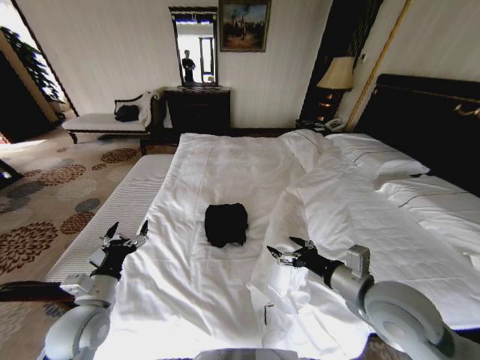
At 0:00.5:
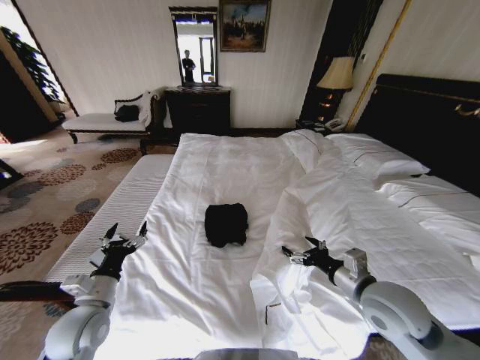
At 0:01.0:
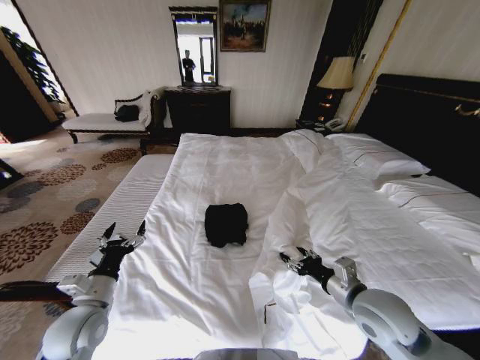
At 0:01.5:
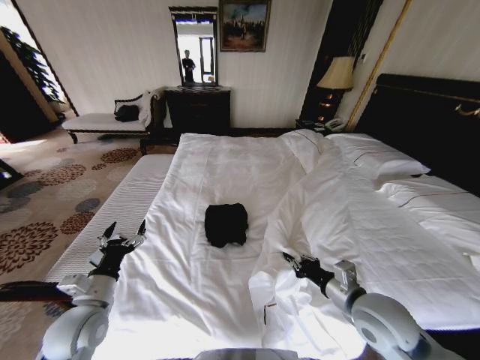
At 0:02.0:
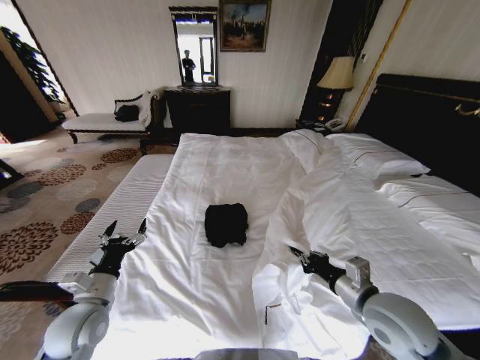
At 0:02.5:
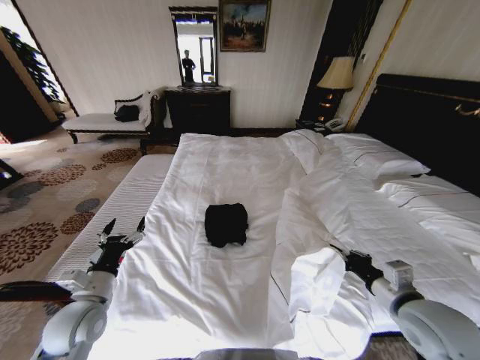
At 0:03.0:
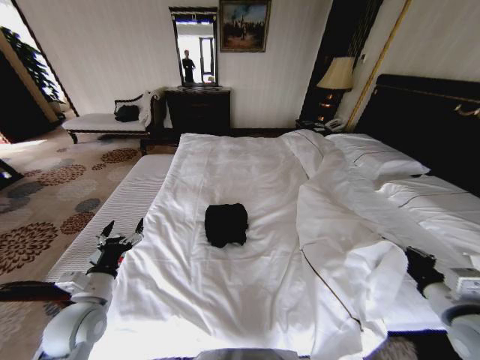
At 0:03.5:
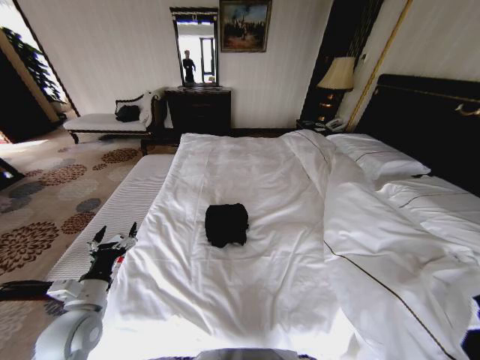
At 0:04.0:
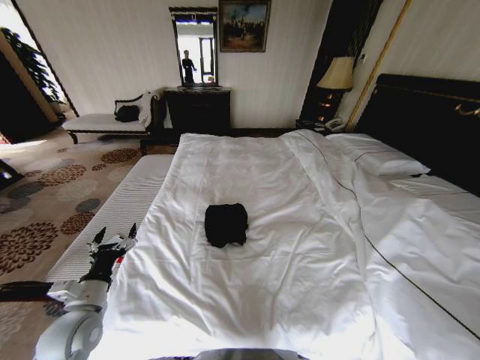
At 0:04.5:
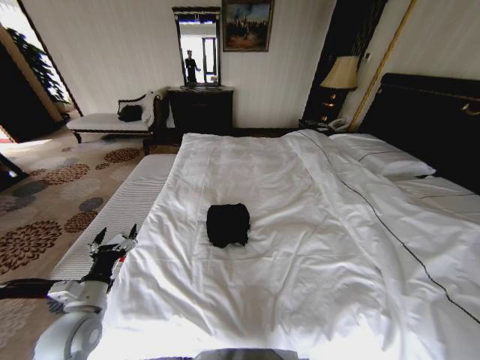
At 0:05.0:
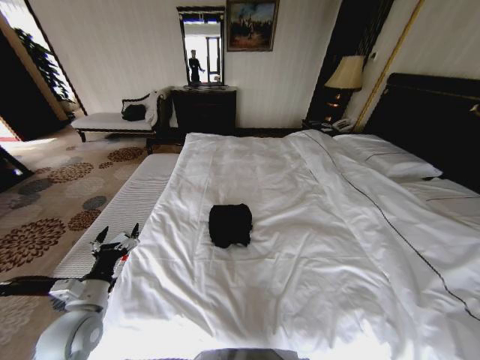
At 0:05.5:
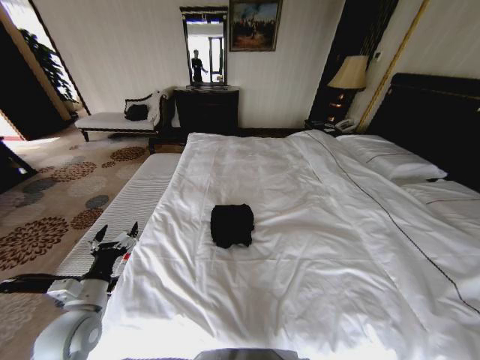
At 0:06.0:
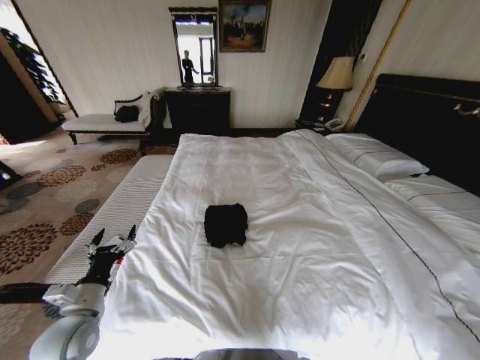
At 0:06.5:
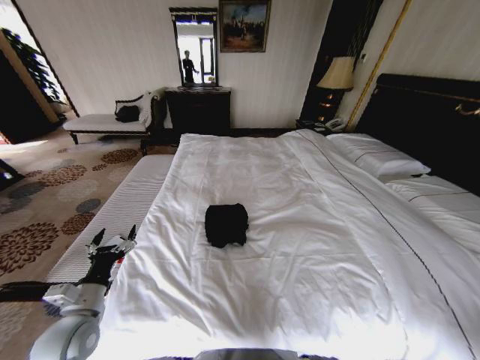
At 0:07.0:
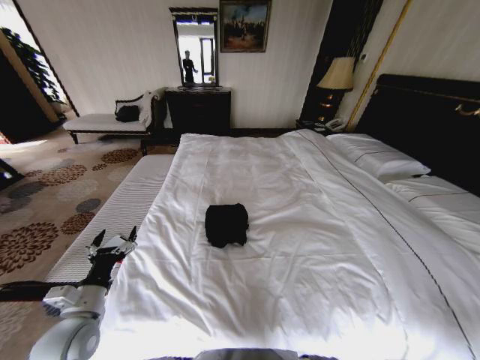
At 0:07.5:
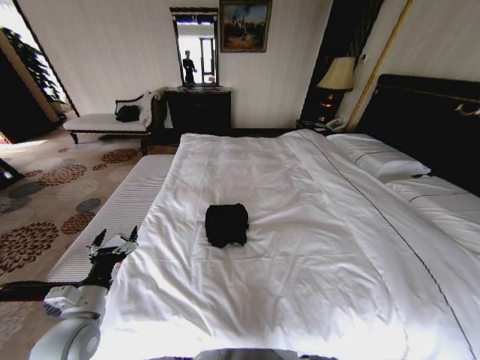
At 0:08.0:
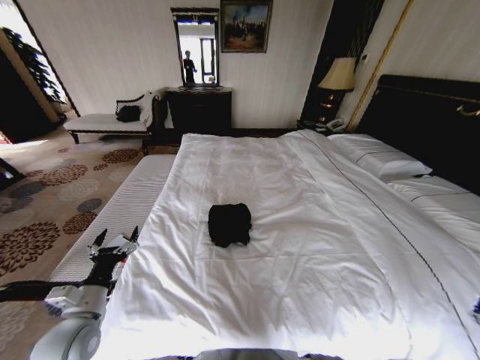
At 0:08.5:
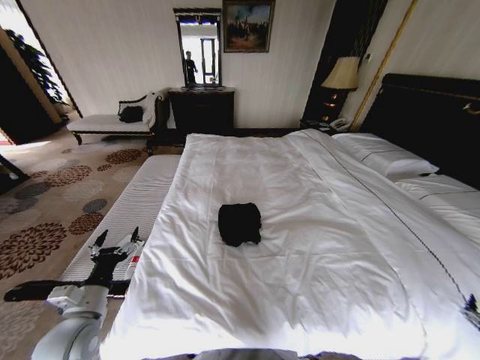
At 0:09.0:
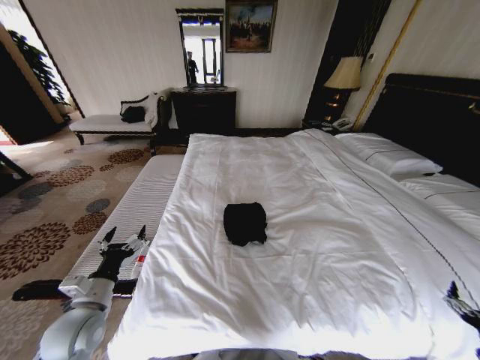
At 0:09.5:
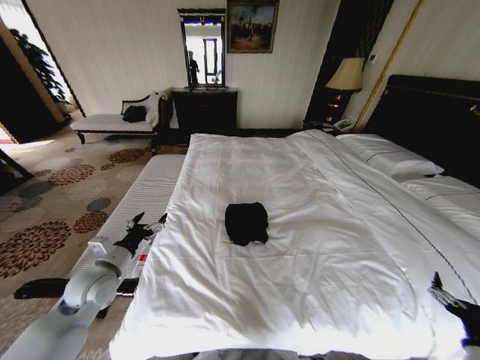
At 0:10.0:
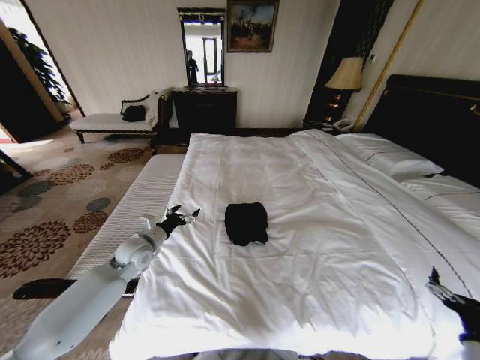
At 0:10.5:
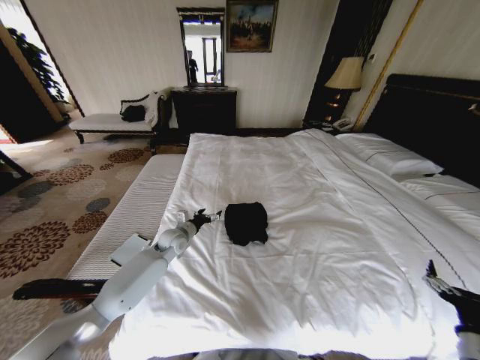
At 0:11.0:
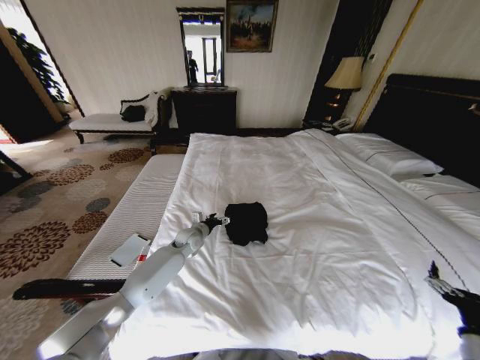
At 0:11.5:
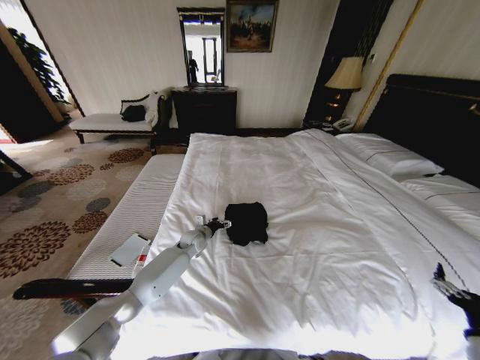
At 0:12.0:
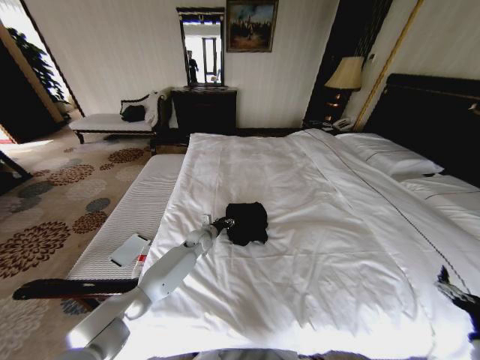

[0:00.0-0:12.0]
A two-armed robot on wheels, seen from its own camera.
Task of the whole recording: Fold the clothes on the bed.
0:00.0 to 0:02.0: The right gripper closes up.
0:02.0 to 0:04.0: The right gripper moves to the right and backward, some 35 cm.
0:04.0 to 0:06.0: The right gripper travels downward, to the right and backward by about 25 cm.
0:06.0 to 0:08.0: The right gripper moves to the left, forward and upward, some 20 cm, and opens.
0:08.0 to 0:10.0: The left gripper goes roughly 20 cm forward. Meanwhile the right gripper heads to the left, covering approximately 5 cm.
0:10.0 to 0:12.0: The left gripper travels to the right, downward and forward by approximately 25 cm, and closes up.

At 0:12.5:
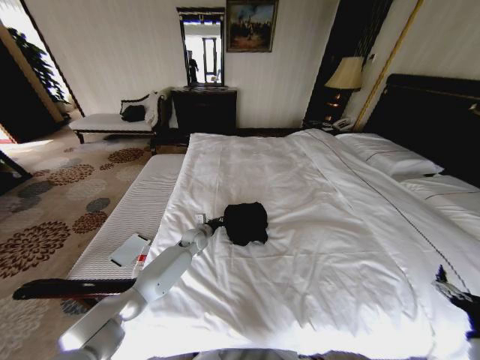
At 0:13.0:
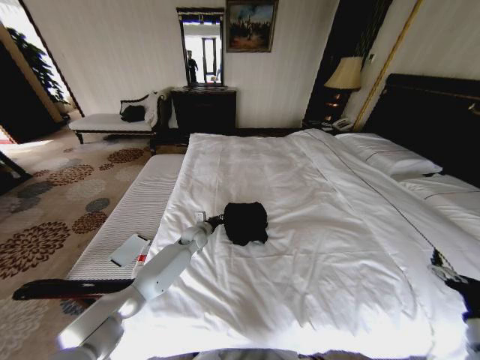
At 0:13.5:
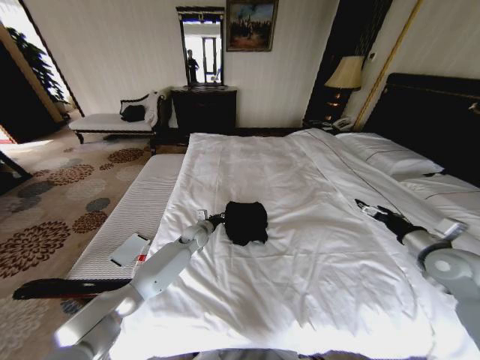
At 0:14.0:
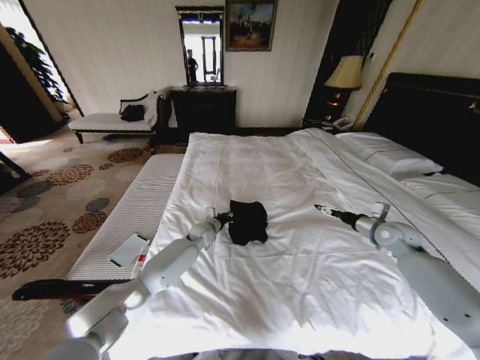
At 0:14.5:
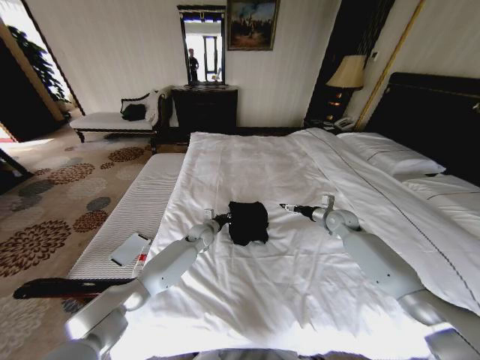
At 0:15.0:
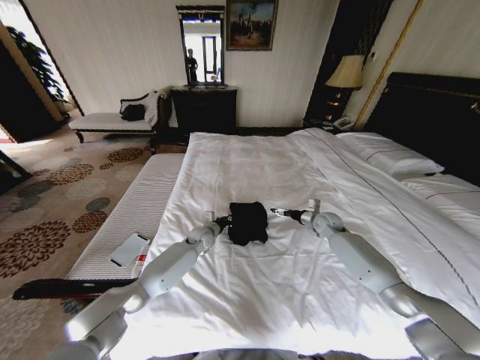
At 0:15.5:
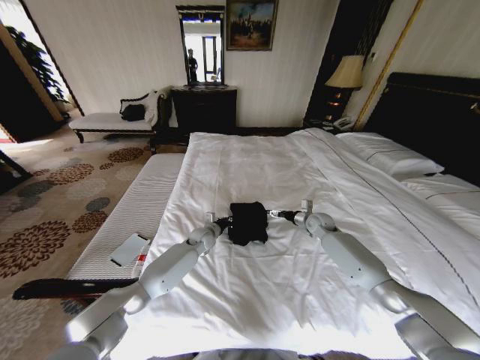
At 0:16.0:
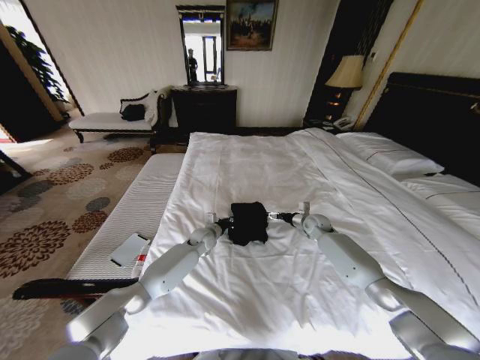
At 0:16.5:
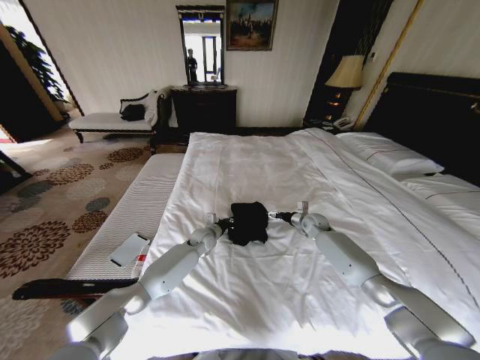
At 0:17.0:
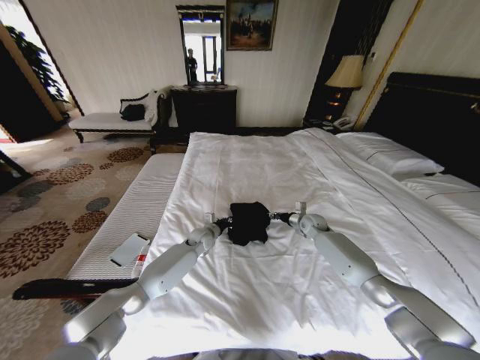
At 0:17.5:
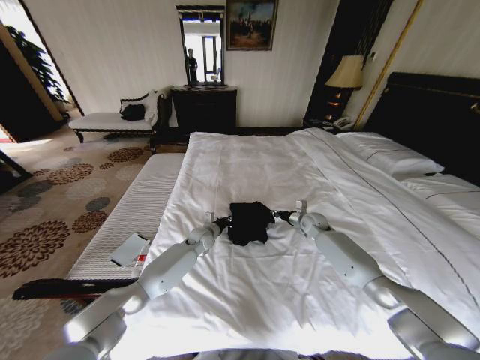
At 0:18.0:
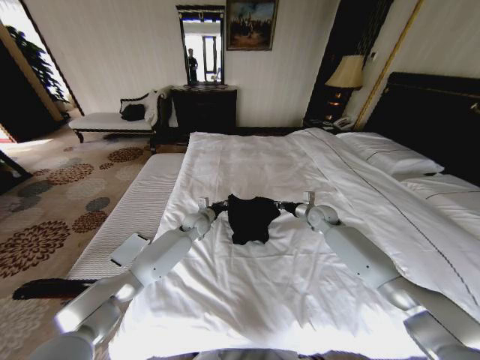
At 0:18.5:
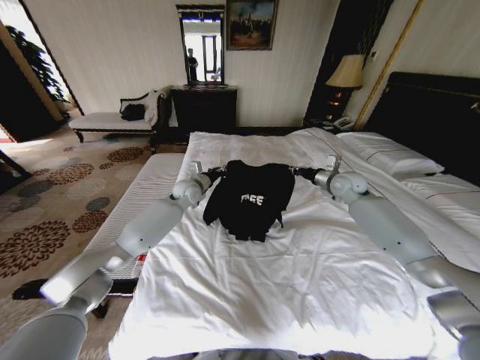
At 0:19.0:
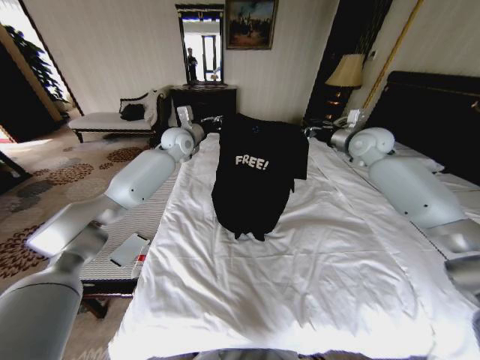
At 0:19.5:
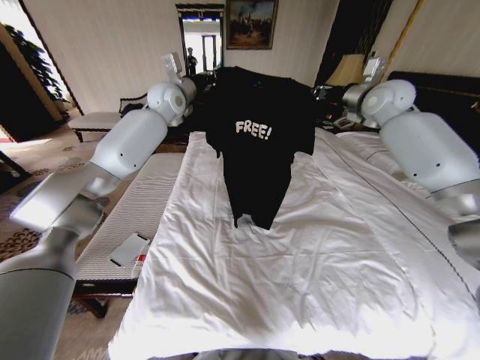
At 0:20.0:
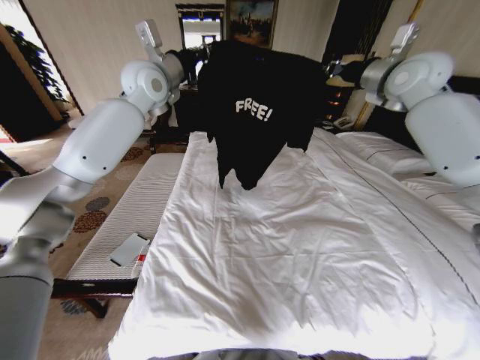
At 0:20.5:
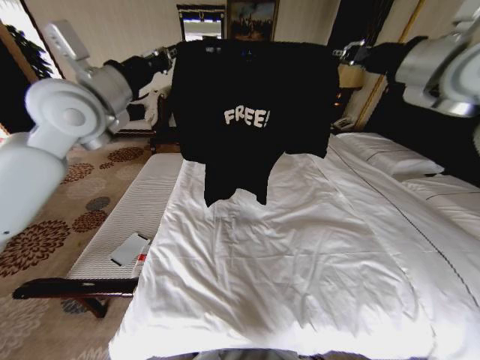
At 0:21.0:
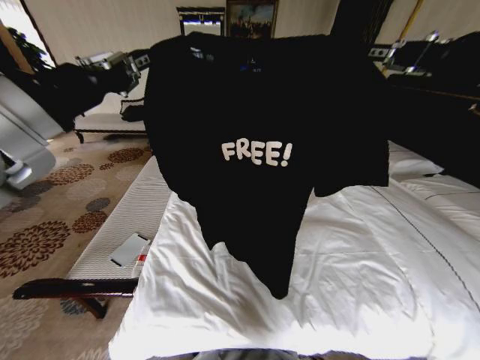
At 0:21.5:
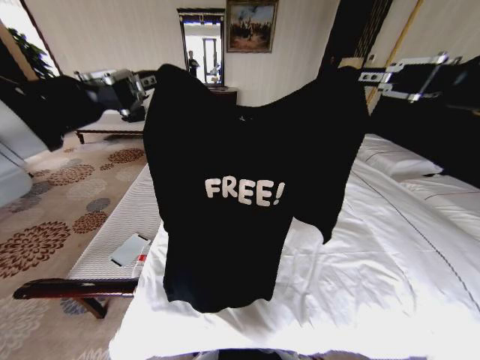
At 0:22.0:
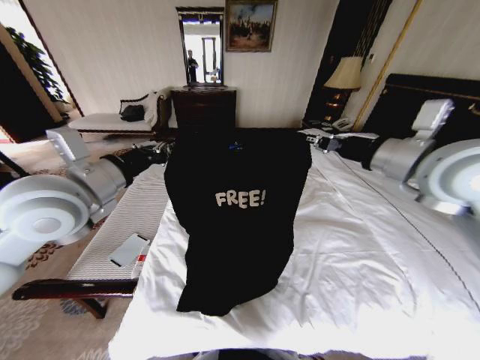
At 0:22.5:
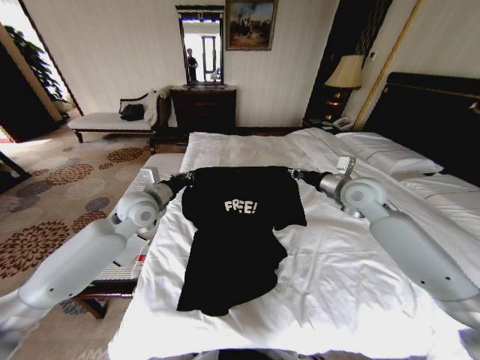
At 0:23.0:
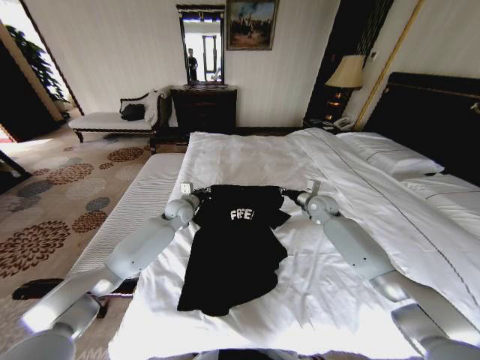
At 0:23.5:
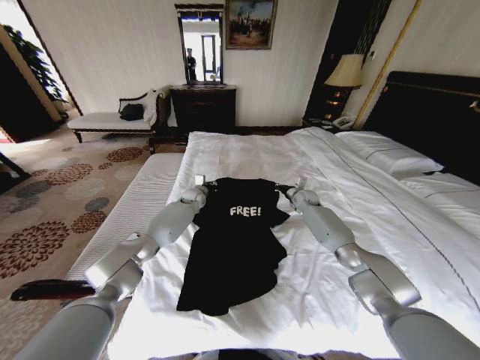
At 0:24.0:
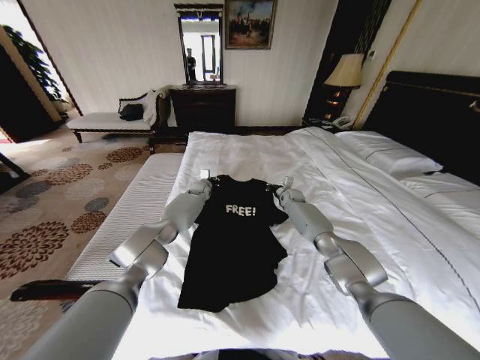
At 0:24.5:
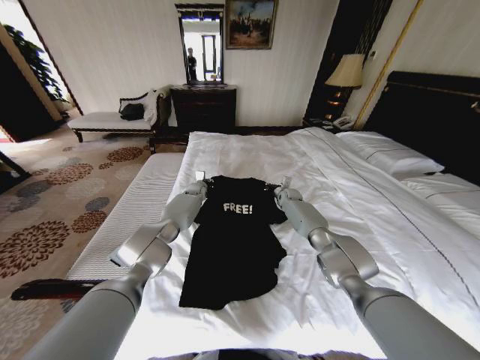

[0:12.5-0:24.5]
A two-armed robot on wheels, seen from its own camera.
Task of the whole recording: Fold the clothes on the bed.
0:12.5 to 0:14.5: The right gripper moves forward, approximately 40 cm.
0:14.5 to 0:16.5: The right gripper travels downward and to the left by approximately 10 cm.
0:16.5 to 0:18.5: The two grippers go approximately 20 cm upward. The right gripper closes.
0:18.5 to 0:20.5: The left gripper is displaced upward, backward and to the left by about 35 cm. The right gripper heads upward and backward, covering approximately 35 cm.
0:20.5 to 0:22.5: Both grippers move downward, some 25 cm.
0:22.5 to 0:24.5: Both grippers move forward and downward, approximately 30 cm.

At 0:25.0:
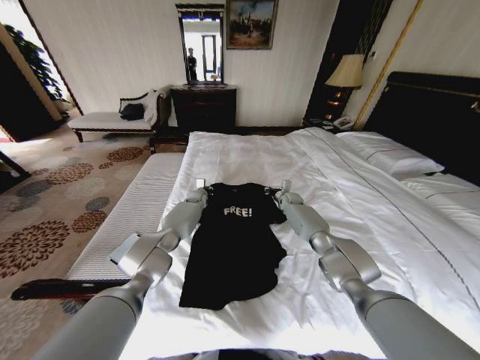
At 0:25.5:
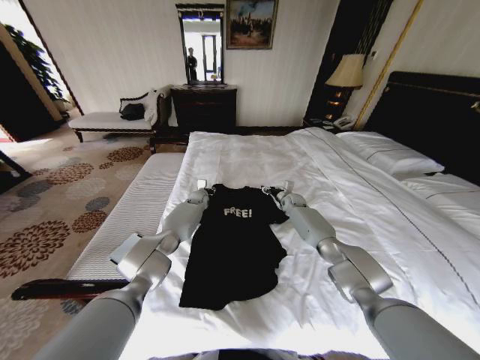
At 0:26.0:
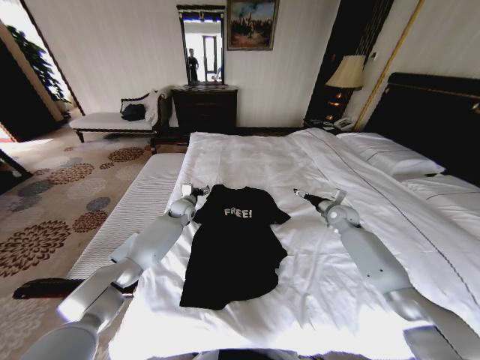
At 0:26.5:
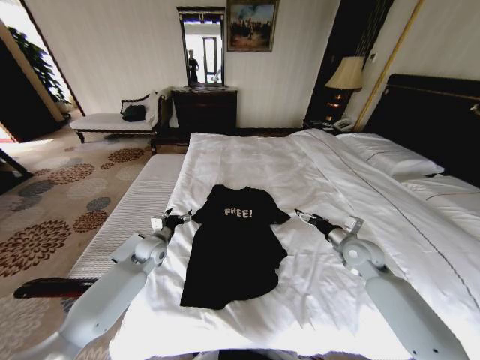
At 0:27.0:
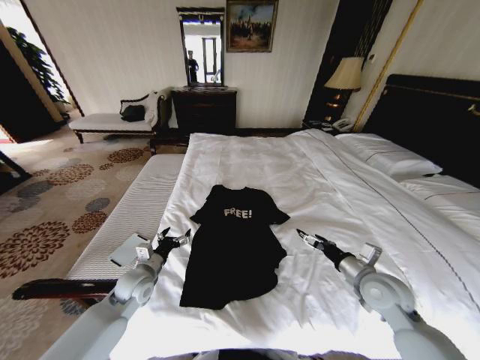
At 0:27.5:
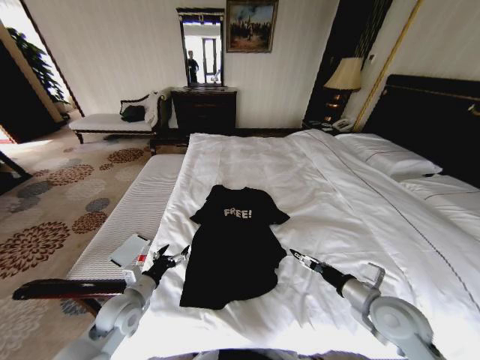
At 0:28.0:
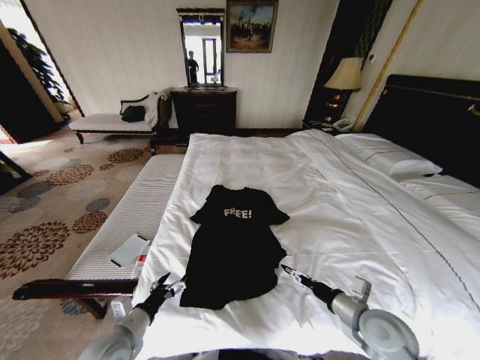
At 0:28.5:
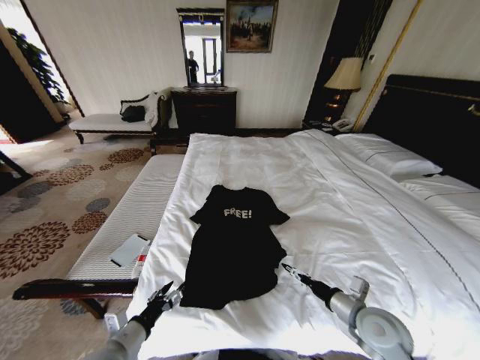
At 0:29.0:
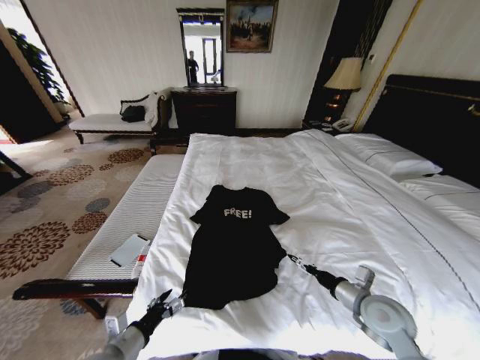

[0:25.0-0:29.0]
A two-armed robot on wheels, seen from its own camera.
Task of the whole recording: Fold the clothes on the bed.
0:25.0 to 0:27.0: The grippers both shift backward by roughly 40 cm. The right gripper opens its fingers, while the left gripper opens.
0:27.0 to 0:29.0: The left gripper travels backward by about 20 cm.
